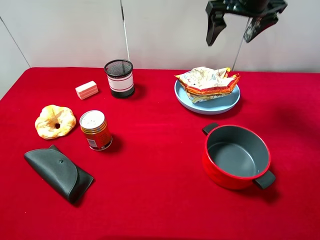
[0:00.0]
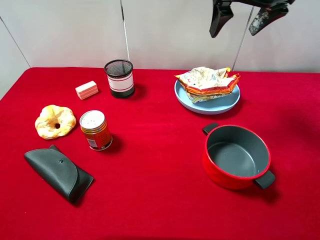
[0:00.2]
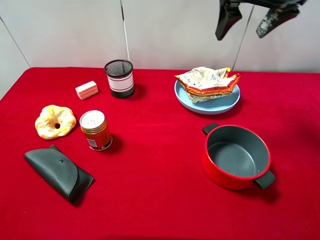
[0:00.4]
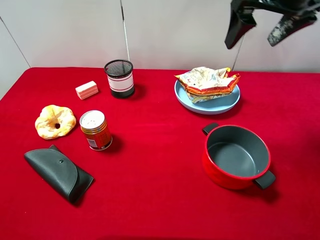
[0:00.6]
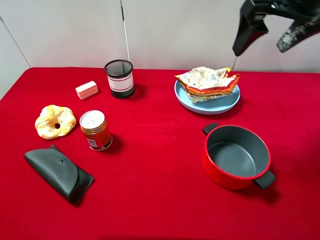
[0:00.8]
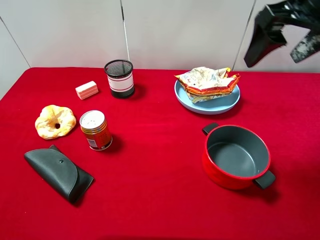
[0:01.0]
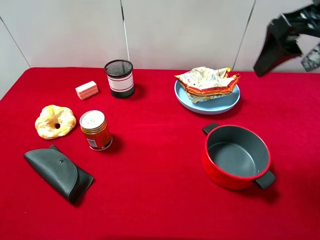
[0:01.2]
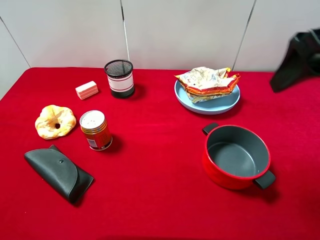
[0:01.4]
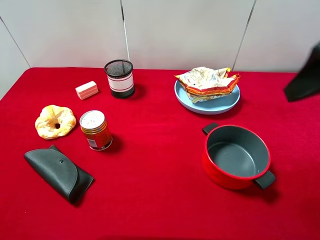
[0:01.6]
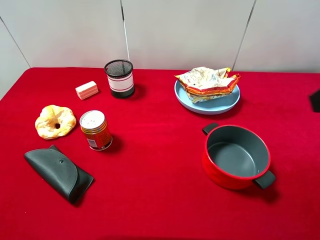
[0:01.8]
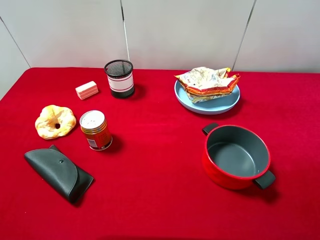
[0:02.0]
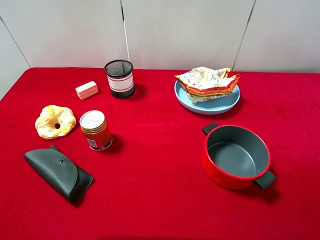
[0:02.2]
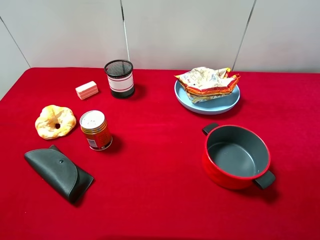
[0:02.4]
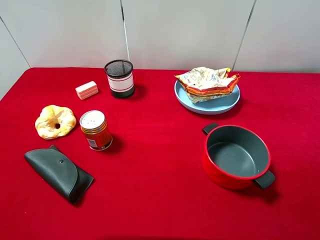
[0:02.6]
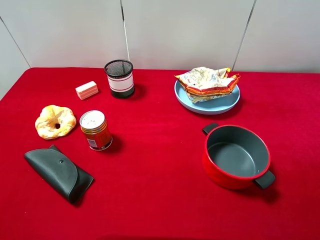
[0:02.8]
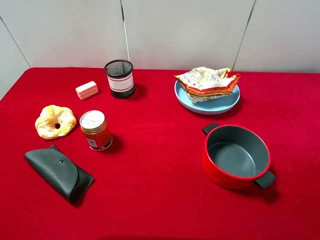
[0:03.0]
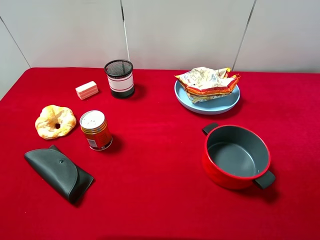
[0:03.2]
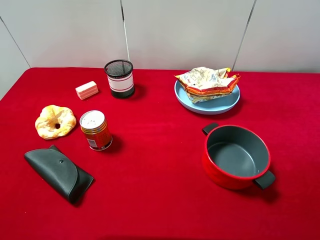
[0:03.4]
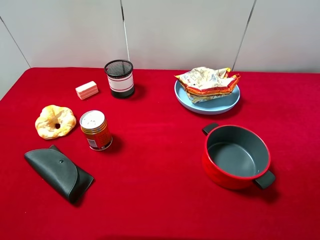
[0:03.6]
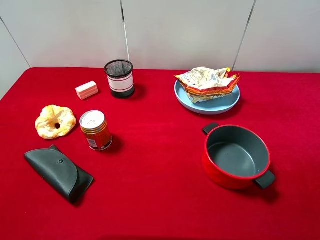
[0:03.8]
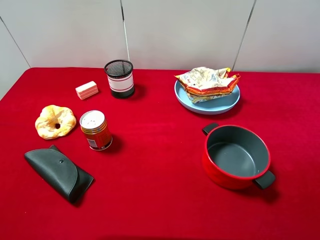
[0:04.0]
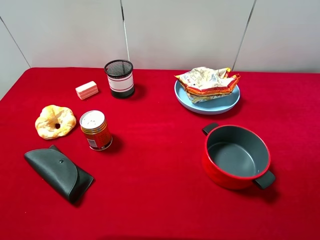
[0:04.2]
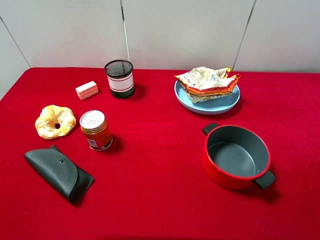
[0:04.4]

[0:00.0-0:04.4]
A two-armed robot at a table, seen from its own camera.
Task of the whole recording: pick up an item with a gripper and place it in a random container on the desktop.
0:00.0 to 0:01.4: The right gripper heads backward, covering approximately 20 cm.
0:01.4 to 0:03.0: The right gripper goes some 20 cm backward.
0:03.0 to 0:04.4: Neither gripper changes place.

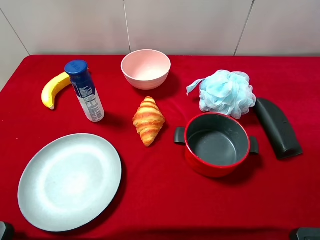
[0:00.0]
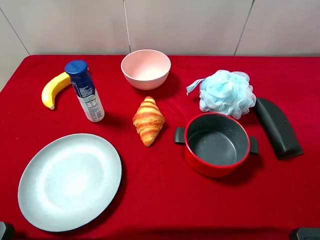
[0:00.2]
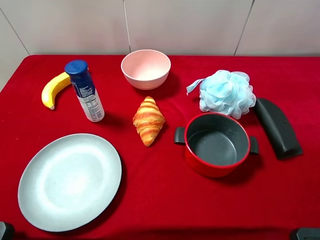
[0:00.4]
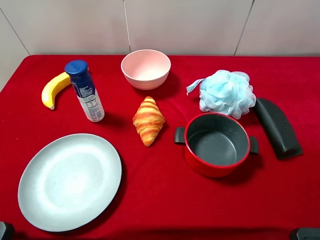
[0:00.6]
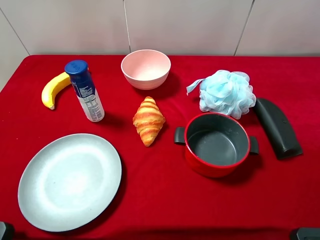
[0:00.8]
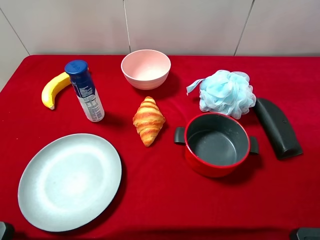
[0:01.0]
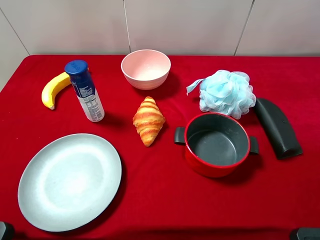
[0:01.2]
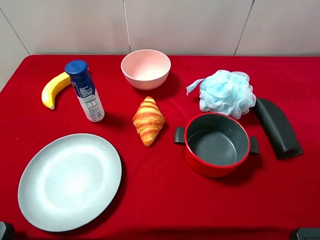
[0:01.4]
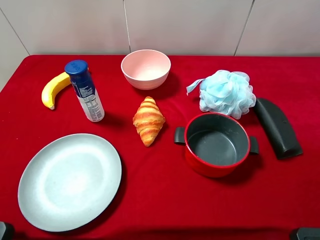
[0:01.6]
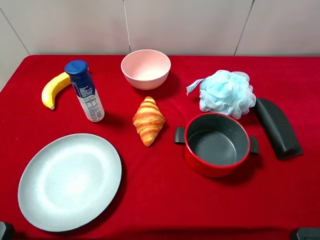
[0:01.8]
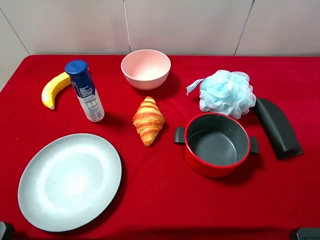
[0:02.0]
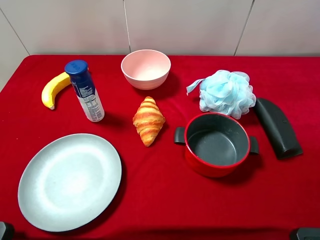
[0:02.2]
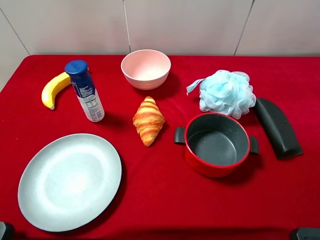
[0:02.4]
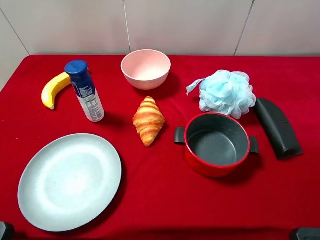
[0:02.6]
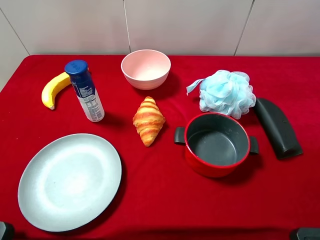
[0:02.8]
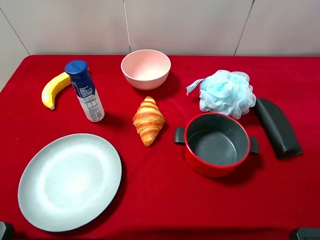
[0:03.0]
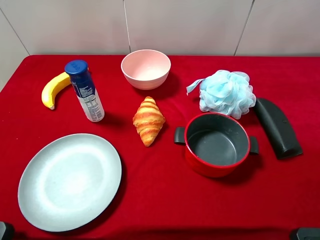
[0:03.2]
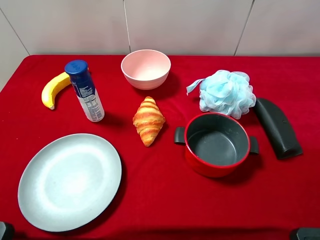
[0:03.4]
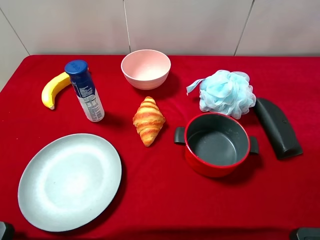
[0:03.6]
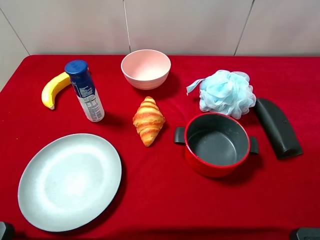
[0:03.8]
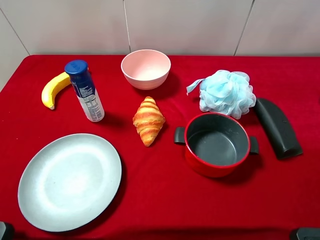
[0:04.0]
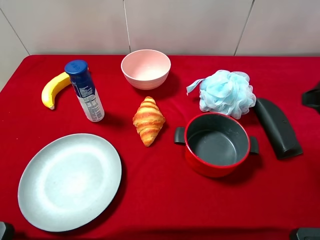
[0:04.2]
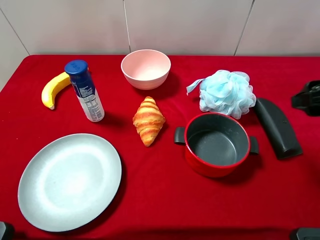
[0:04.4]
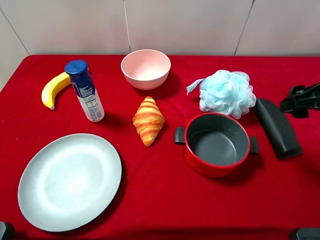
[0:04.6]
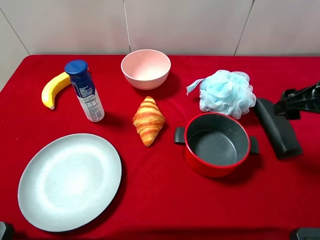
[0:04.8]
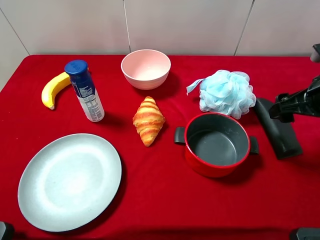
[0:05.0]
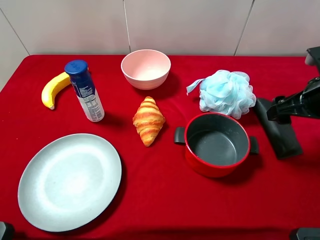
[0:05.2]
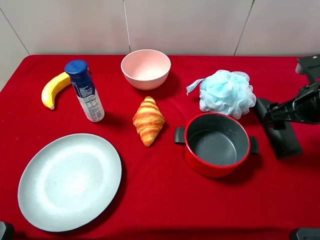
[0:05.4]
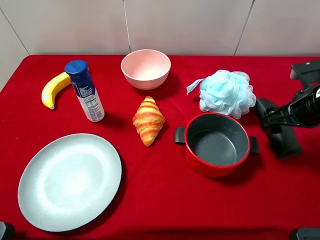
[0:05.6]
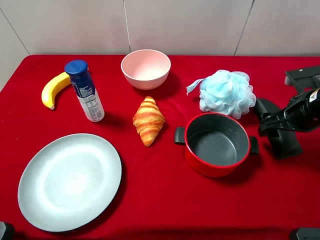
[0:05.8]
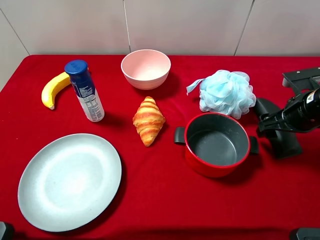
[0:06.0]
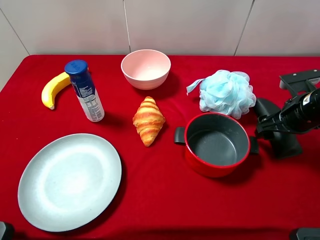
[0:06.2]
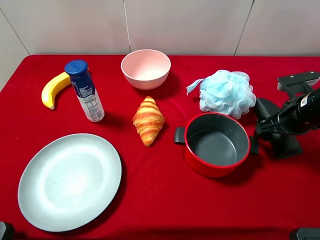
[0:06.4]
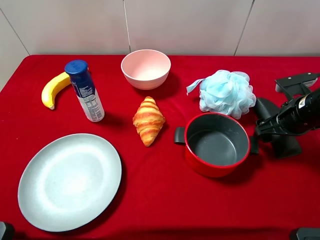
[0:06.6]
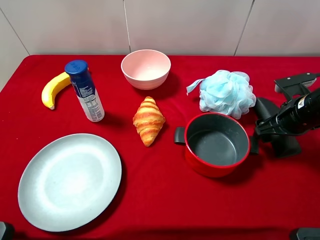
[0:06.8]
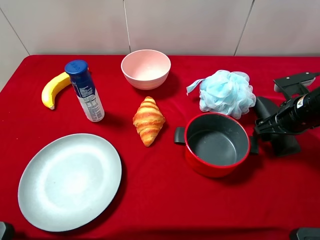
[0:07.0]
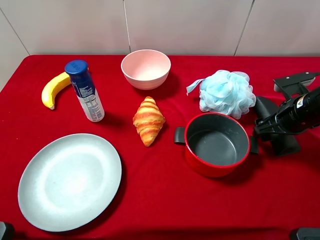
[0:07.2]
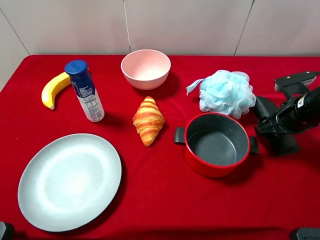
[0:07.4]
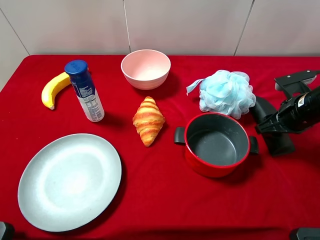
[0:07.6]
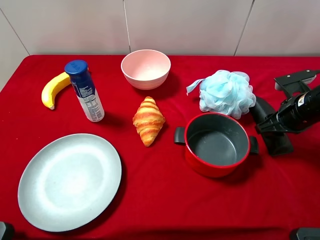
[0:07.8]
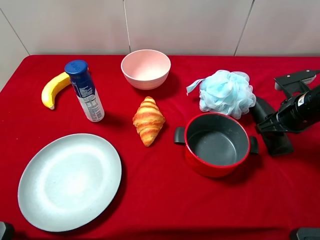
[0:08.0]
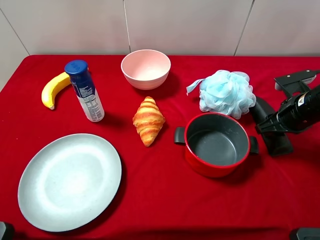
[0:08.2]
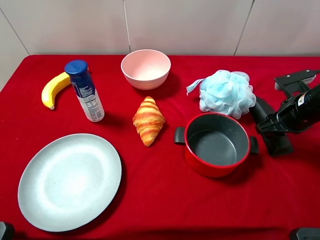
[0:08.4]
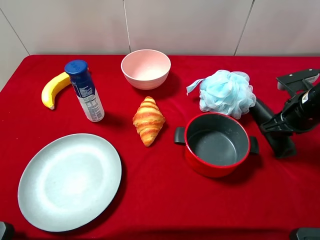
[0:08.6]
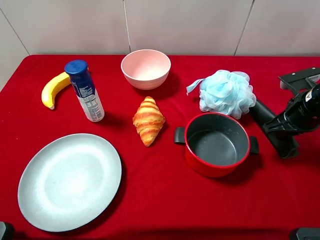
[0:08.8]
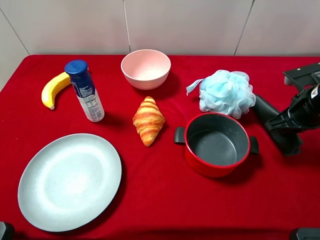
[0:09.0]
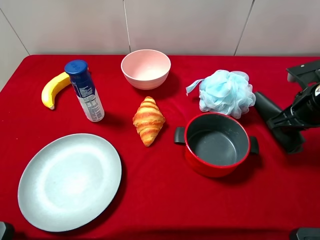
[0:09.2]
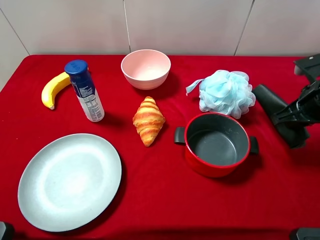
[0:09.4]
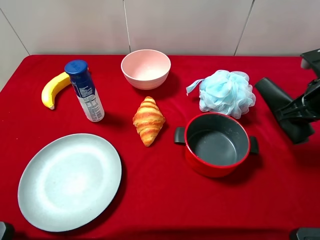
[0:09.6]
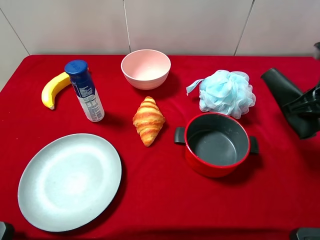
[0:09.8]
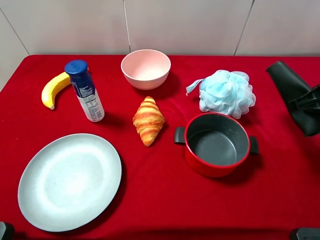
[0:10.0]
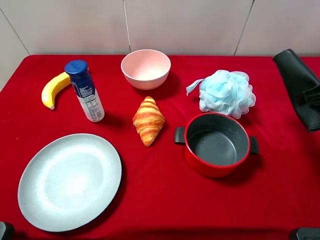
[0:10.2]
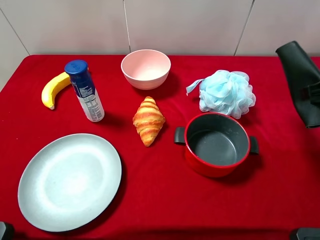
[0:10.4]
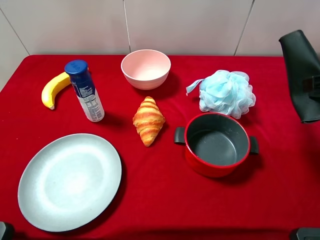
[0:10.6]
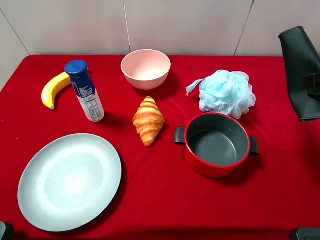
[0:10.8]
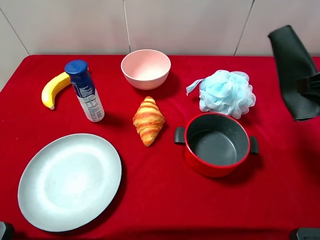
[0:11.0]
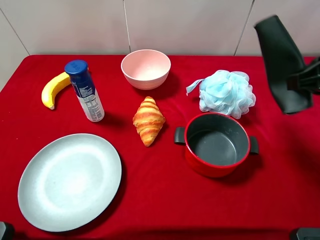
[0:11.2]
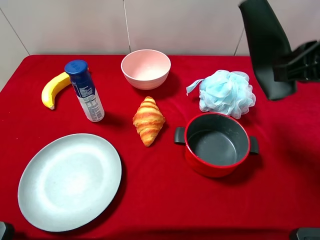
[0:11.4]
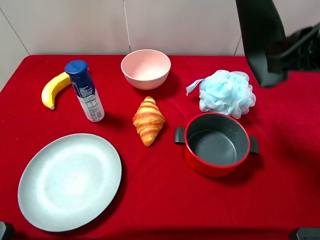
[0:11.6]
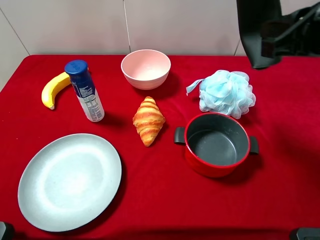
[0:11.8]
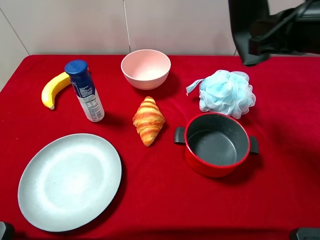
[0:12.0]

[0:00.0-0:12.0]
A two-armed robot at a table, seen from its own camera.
Task of the whole recording: pick up an item with a gripper and place it in a random container on the desktop.
0:00.0 to 0:01.6: Neither gripper changes place.
0:03.0 to 0:04.4: The right gripper heads forward, covering some 15 cm.
0:04.4 to 0:06.0: The right gripper is displaced downward and forward by some 10 cm.
0:06.0 to 0:07.6: The right gripper closes its fingers.
0:07.6 to 0:09.0: The right gripper closes.
0:09.0 to 0:10.4: The right gripper heads upward and backward, covering roughly 10 cm.
0:10.4 to 0:12.0: The right gripper heads to the left, covering some 10 cm.

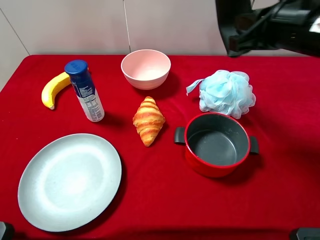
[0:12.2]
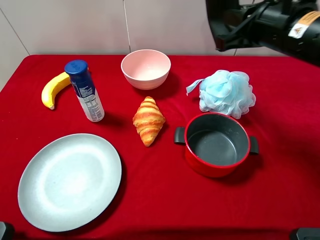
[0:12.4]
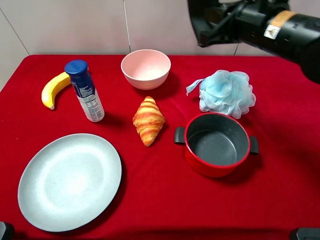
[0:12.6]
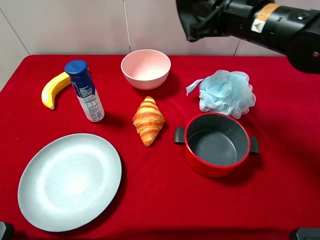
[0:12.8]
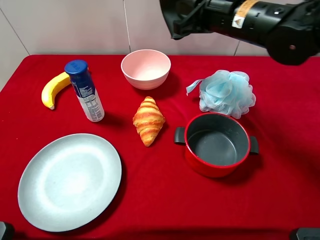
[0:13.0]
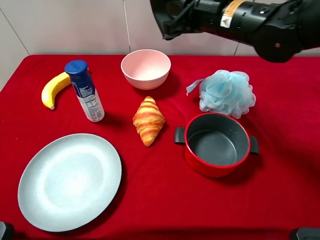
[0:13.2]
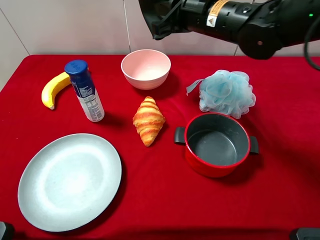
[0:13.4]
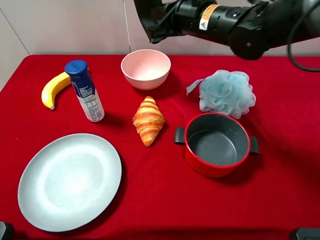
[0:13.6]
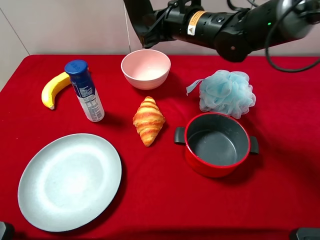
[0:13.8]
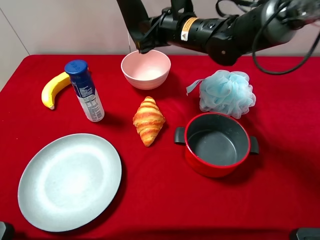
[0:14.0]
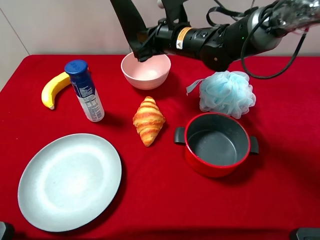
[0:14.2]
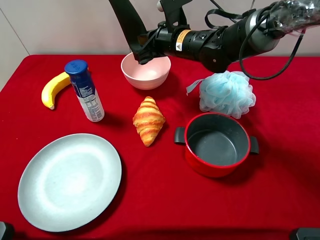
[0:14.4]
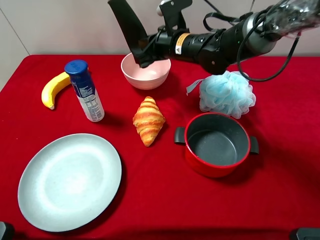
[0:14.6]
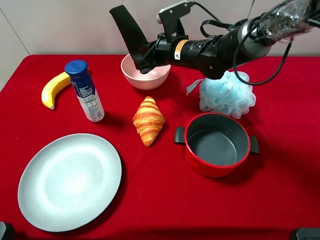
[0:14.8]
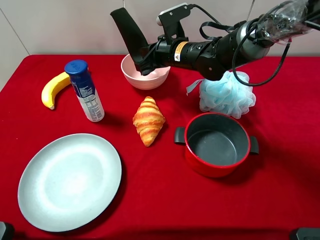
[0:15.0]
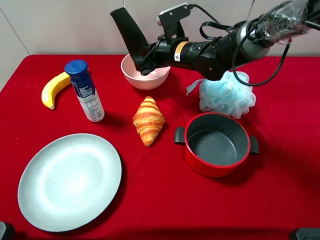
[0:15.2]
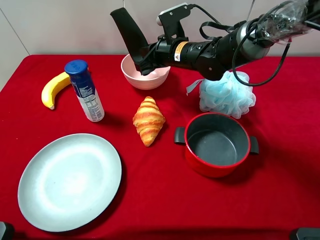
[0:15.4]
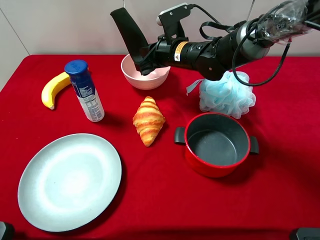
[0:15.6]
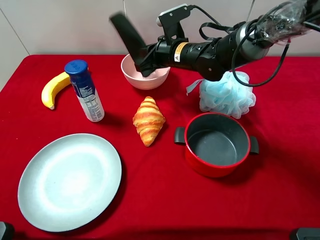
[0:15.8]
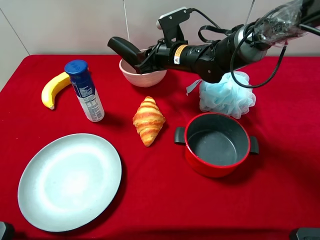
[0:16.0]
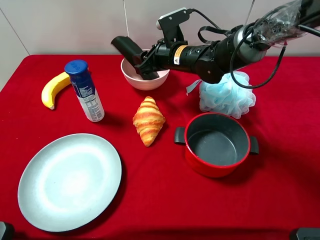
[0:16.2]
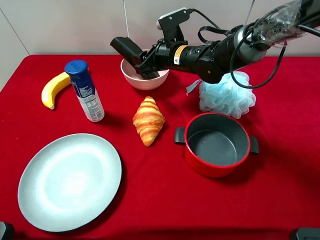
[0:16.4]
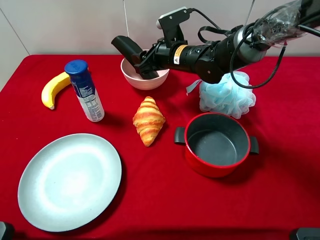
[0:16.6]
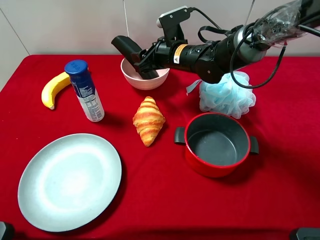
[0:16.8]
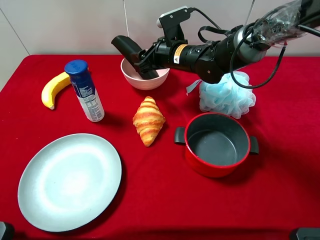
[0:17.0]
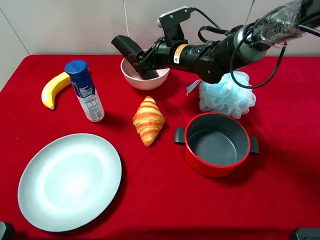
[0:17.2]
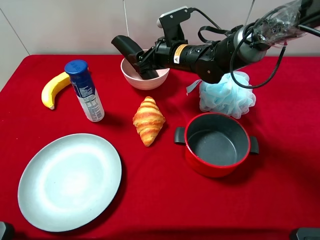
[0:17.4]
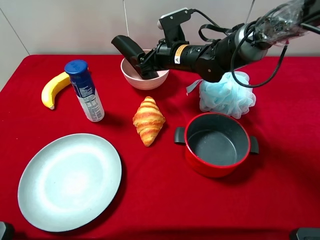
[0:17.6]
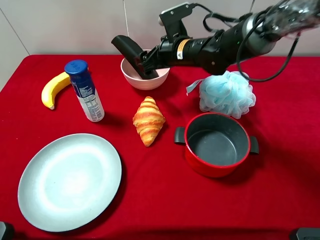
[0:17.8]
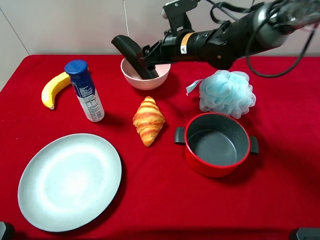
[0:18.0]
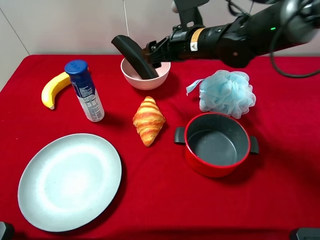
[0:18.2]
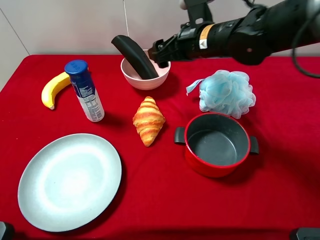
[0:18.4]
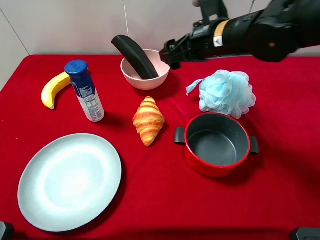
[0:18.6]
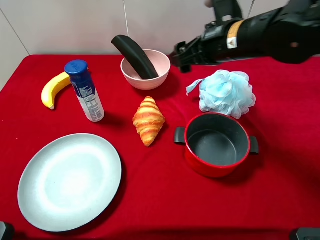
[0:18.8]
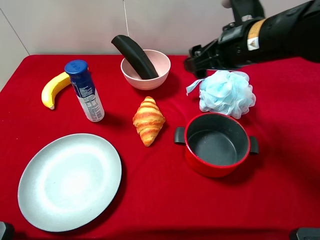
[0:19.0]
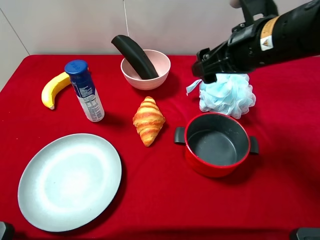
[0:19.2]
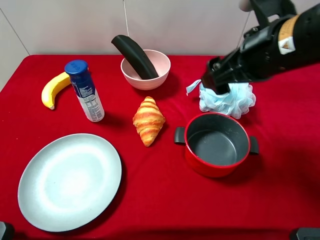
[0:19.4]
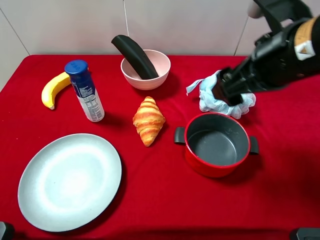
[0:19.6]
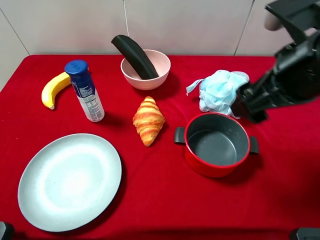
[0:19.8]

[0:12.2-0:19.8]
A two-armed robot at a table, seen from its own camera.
Task of the whole recording: pick up an item with a gripper and place it in a random container on the desktop.
0:12.2 to 0:13.8: The right gripper travels to the left, forward and downward by roughly 20 cm.
0:13.8 to 0:15.2: The right gripper is displaced downward by approximately 5 cm.
0:15.2 to 0:16.8: The right gripper opens.
0:16.8 to 0:18.2: The right gripper shifts approximately 5 cm upward.
0:18.2 to 0:19.8: The right gripper is displaced backward, to the right and upward by some 25 cm.
